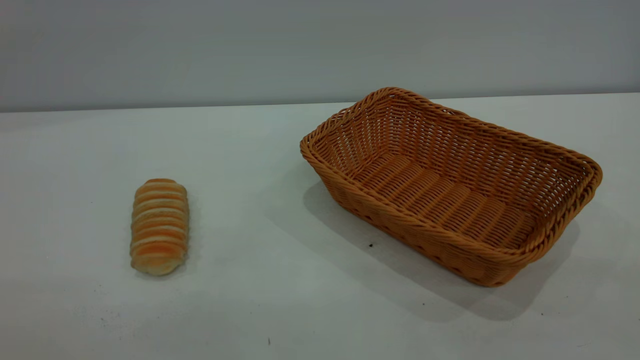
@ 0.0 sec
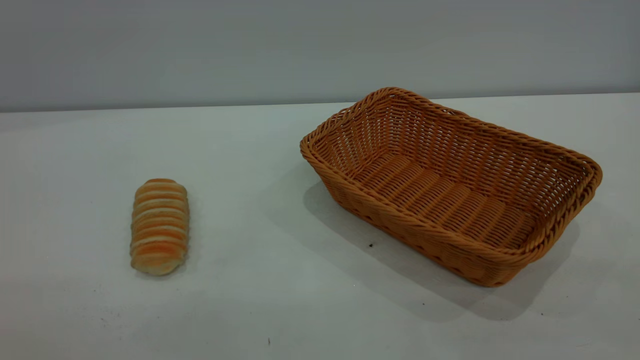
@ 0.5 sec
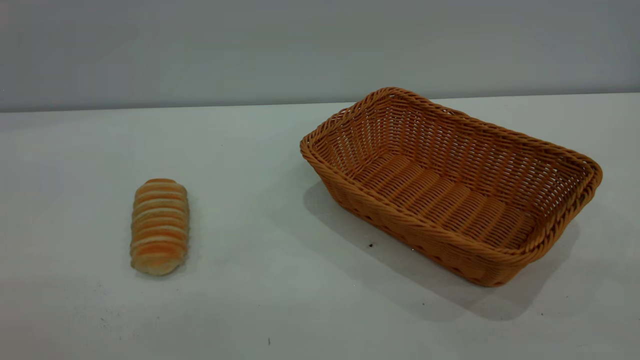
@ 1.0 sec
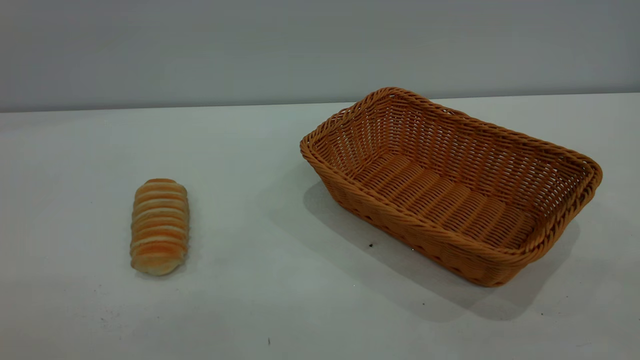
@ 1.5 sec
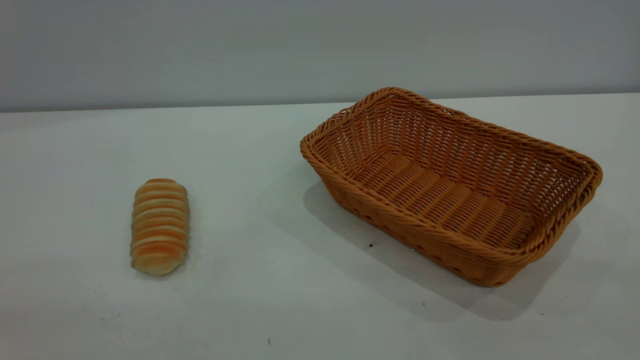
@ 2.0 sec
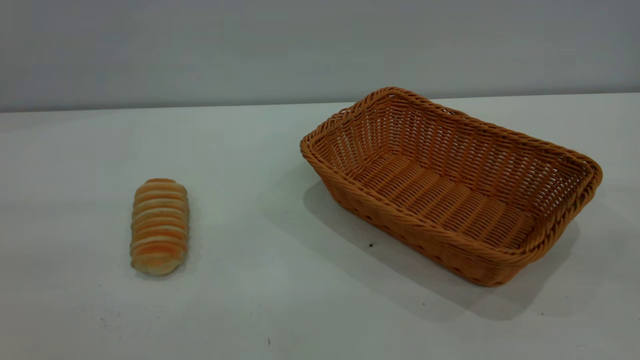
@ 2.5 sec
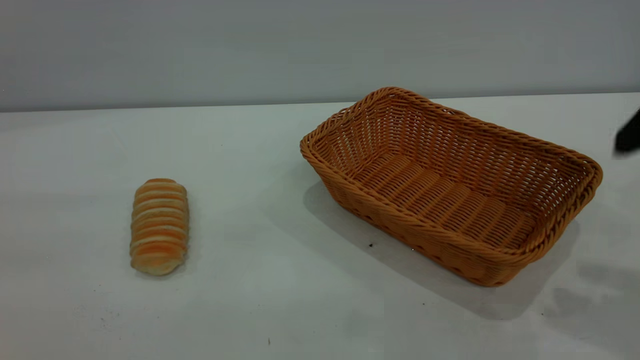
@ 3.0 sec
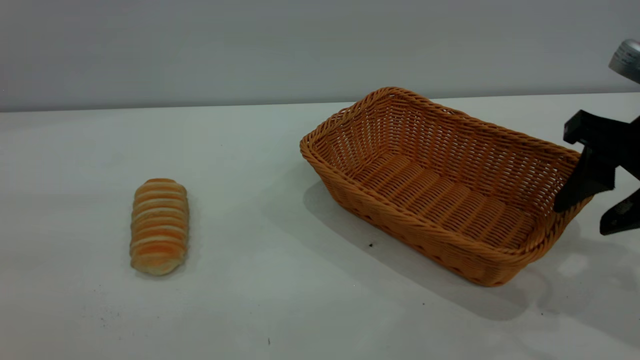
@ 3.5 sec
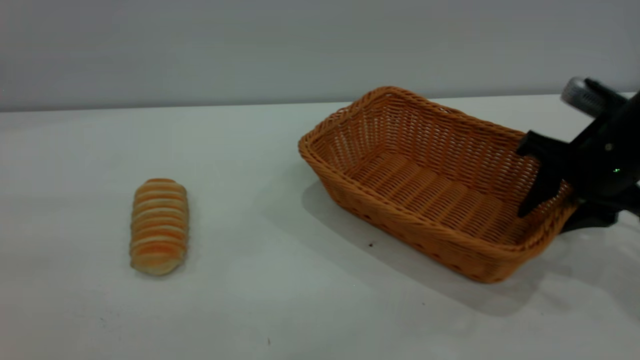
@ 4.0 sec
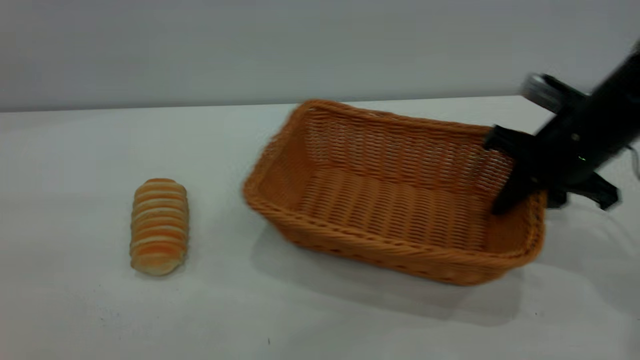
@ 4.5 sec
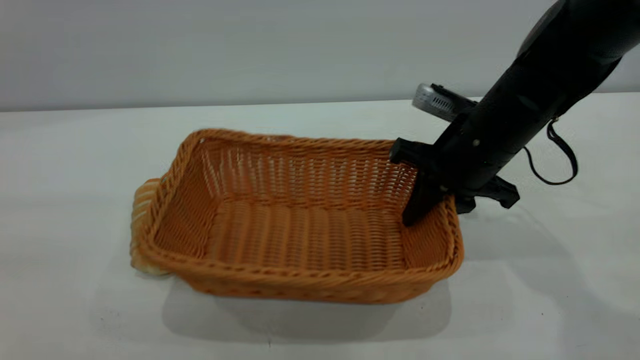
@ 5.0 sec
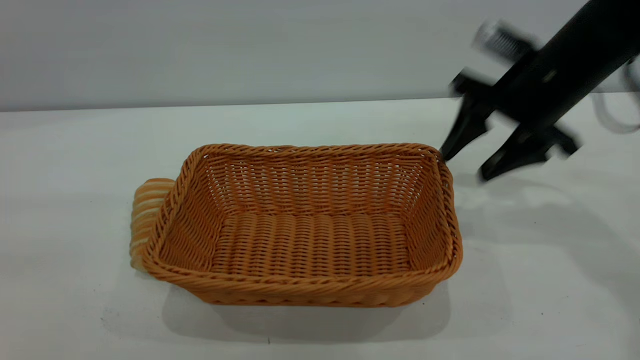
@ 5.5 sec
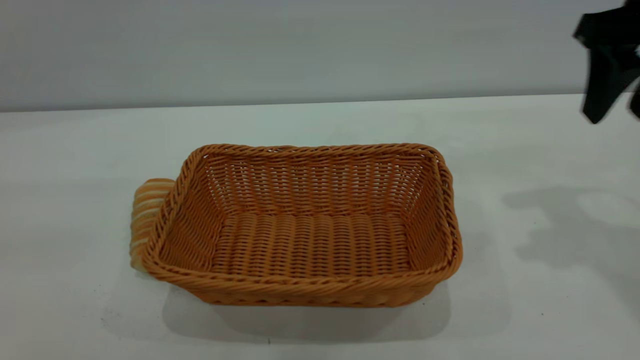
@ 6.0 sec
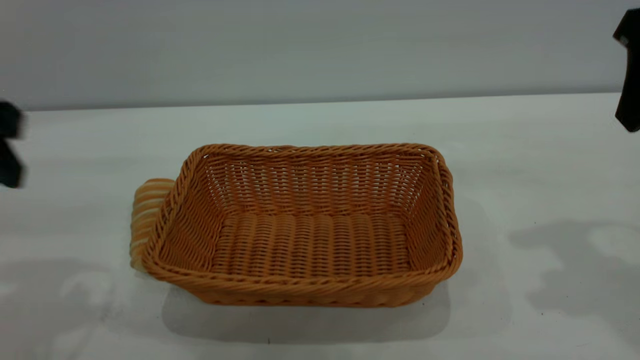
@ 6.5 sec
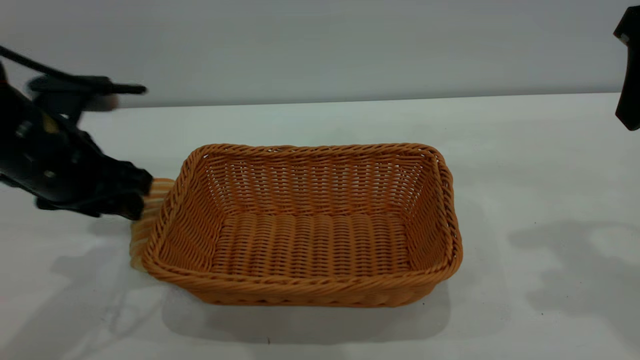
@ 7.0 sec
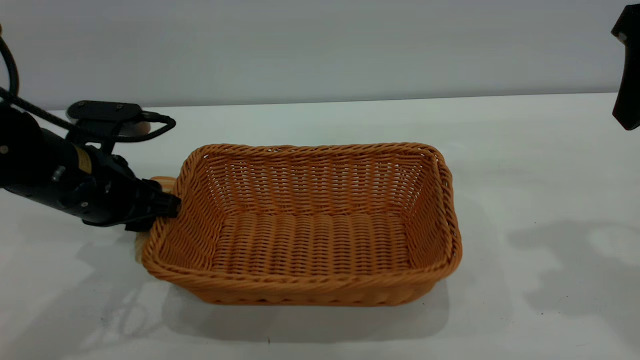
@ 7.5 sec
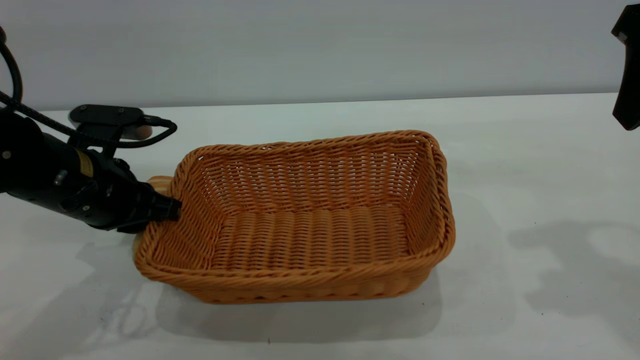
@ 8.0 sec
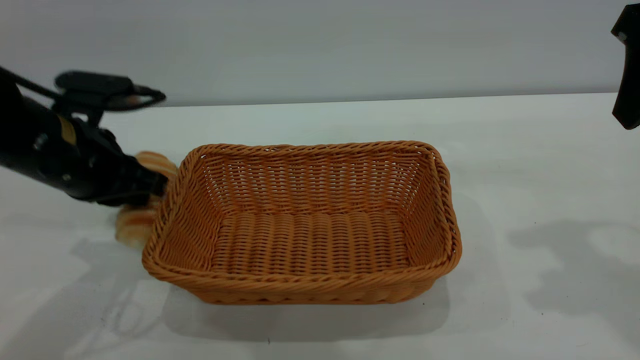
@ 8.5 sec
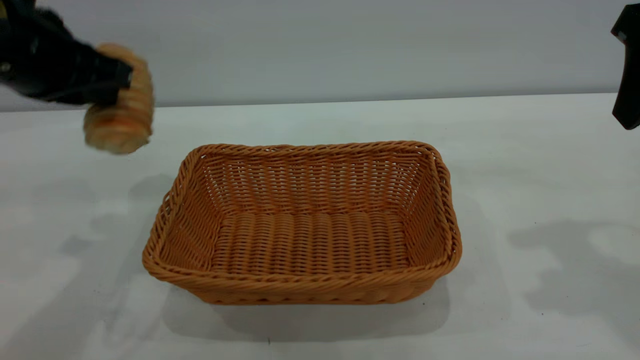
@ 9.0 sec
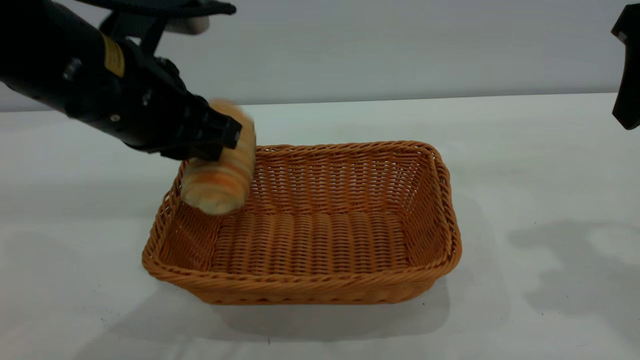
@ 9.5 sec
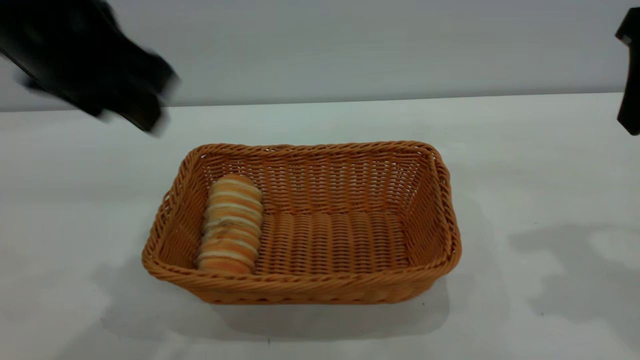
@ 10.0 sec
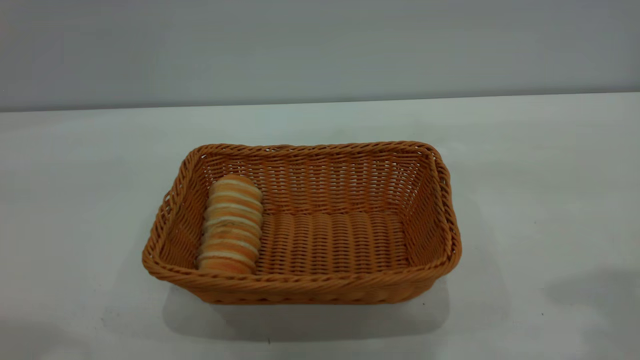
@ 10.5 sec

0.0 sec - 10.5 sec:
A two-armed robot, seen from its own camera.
Task of the whole recording: One hand grasps the yellow basket and places it in the middle of the table, while the other hand picks up the long bread and puts it into the yellow basket.
Step, 0.0 sec - 5.0 sec: Move the basket to the center of view.
Step, 9.0 sec - 9.5 sec: place the bread into the basket.
2.0 sec - 4.0 sec: The right gripper is displaced forward and downward by some 40 cm.
4.0 sec - 6.5 sec: The right gripper heads upward, covering roughly 20 cm, and closes, then reopens; the left gripper heads forward and downward, covering approximately 25 cm.
6.5 sec - 8.5 sec: The left gripper moves downward and forward, approximately 10 cm, and closes its fingers.
8.5 sec - 10.5 sec: The left gripper shifts roughly 35 cm upward and backward, and opens; the right gripper heads backward and upward, covering approximately 10 cm.
